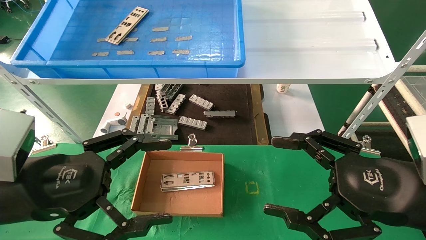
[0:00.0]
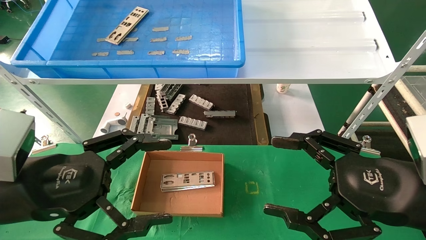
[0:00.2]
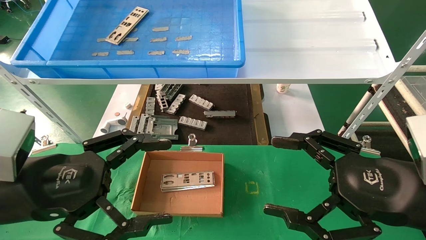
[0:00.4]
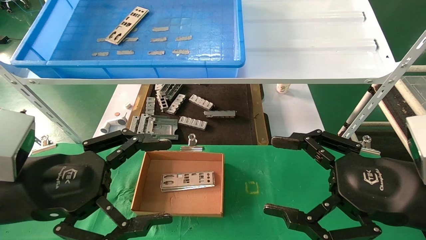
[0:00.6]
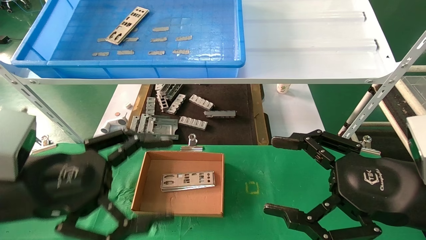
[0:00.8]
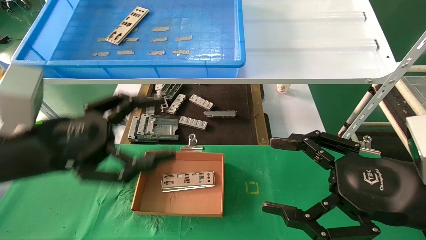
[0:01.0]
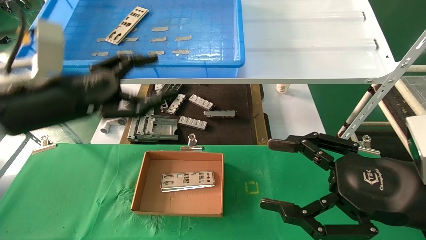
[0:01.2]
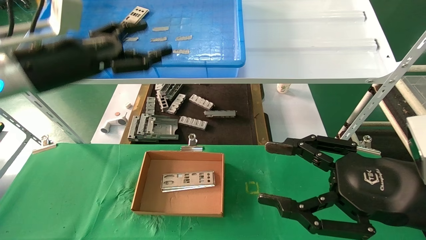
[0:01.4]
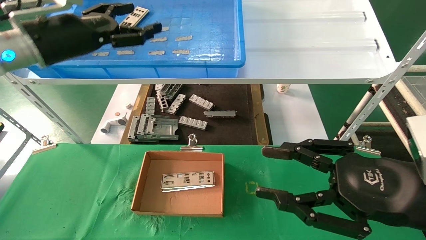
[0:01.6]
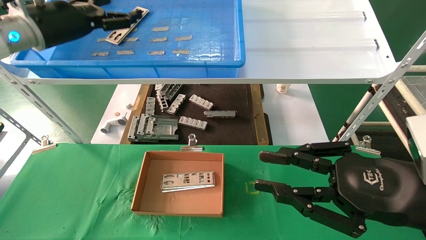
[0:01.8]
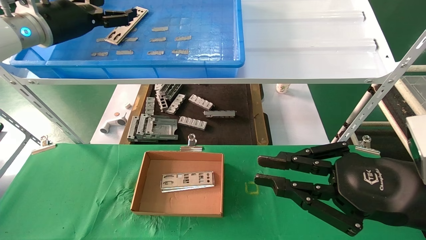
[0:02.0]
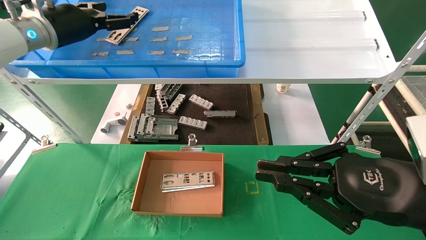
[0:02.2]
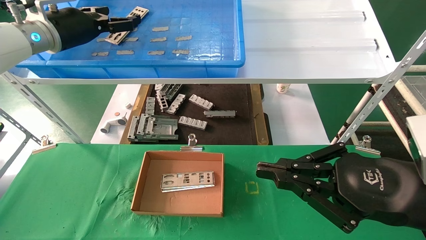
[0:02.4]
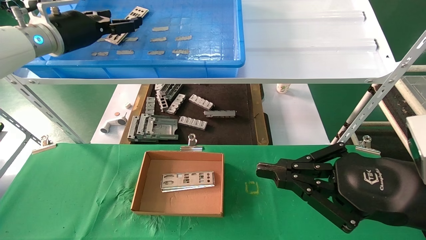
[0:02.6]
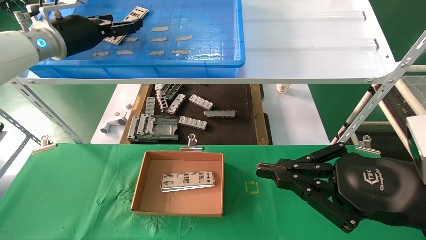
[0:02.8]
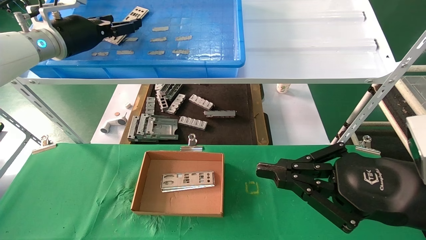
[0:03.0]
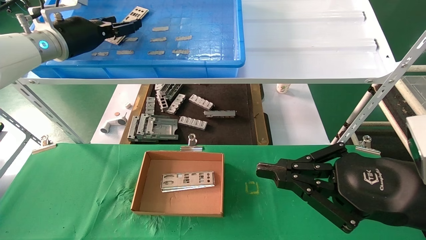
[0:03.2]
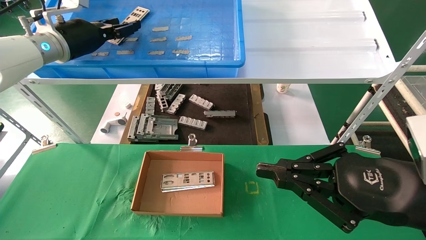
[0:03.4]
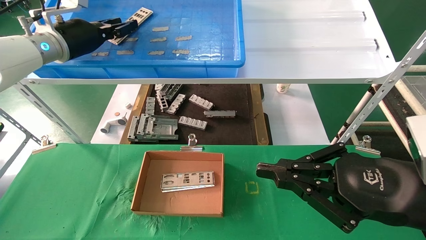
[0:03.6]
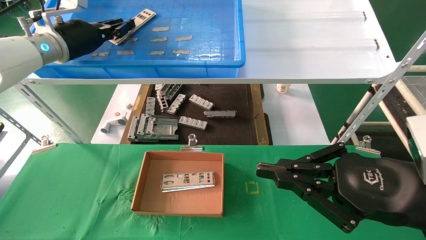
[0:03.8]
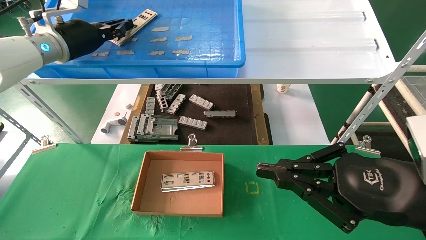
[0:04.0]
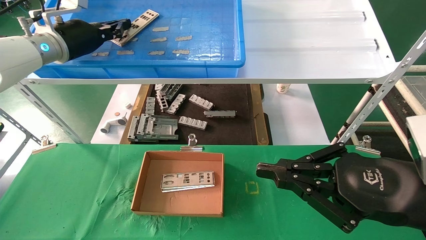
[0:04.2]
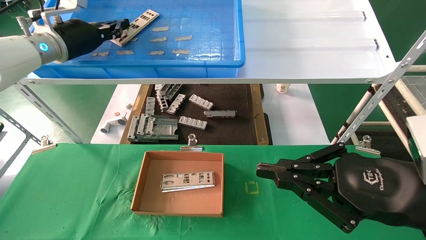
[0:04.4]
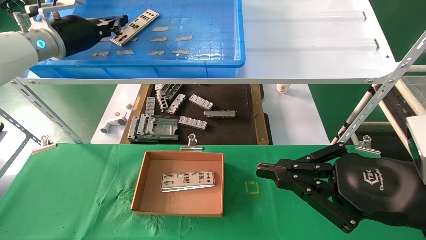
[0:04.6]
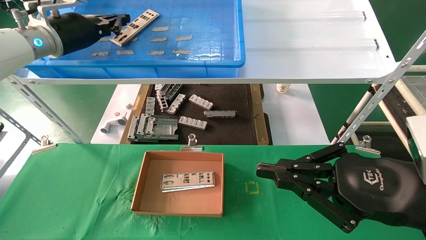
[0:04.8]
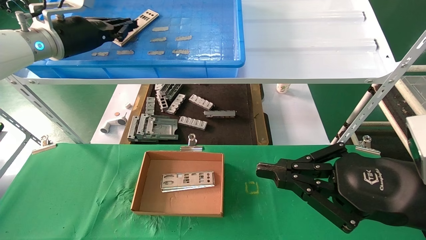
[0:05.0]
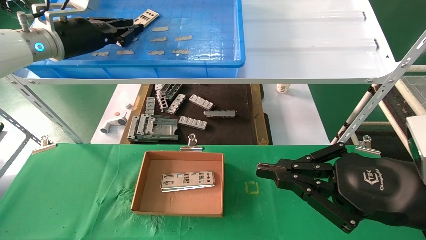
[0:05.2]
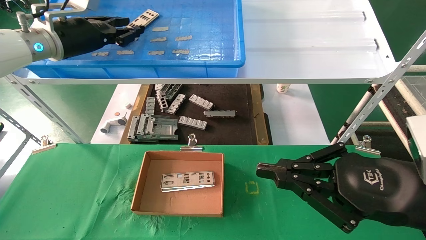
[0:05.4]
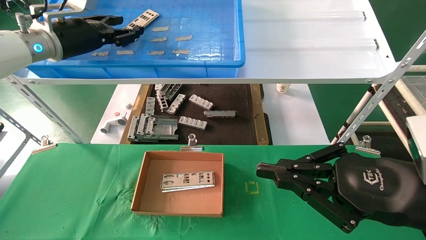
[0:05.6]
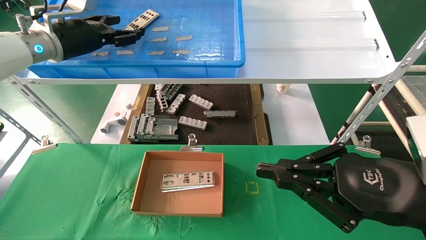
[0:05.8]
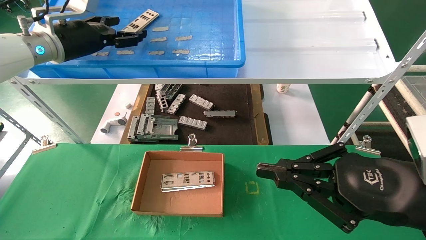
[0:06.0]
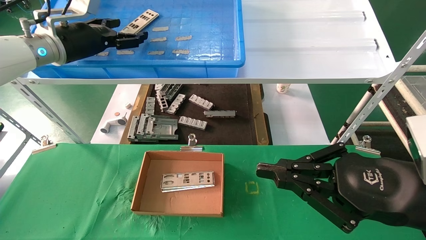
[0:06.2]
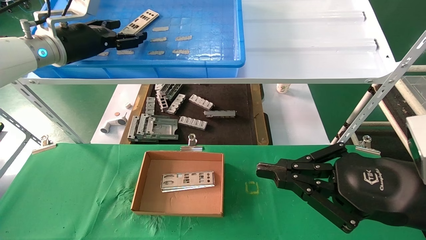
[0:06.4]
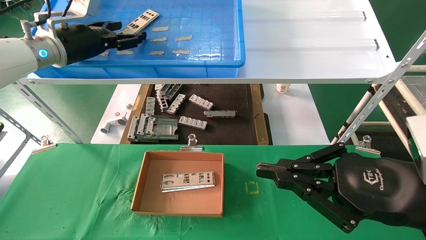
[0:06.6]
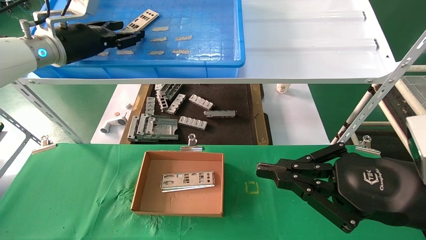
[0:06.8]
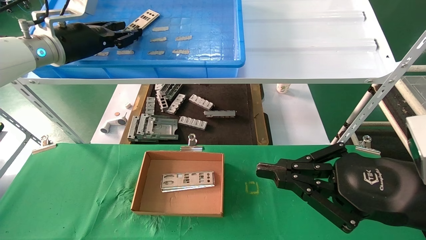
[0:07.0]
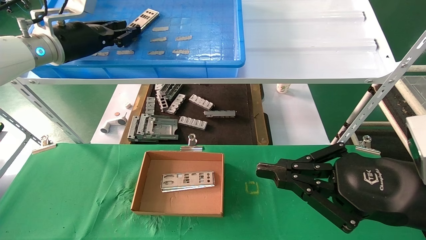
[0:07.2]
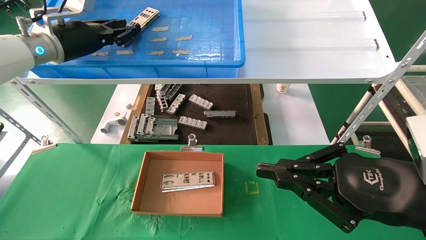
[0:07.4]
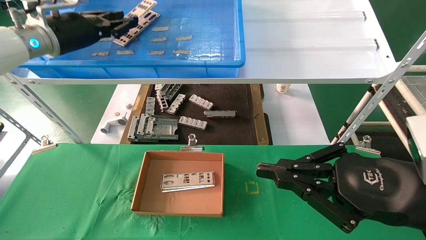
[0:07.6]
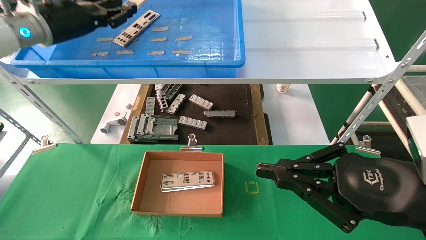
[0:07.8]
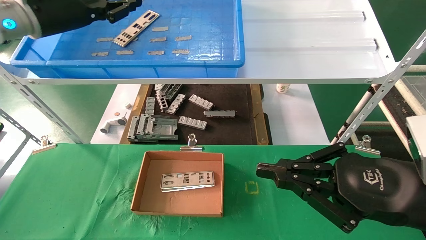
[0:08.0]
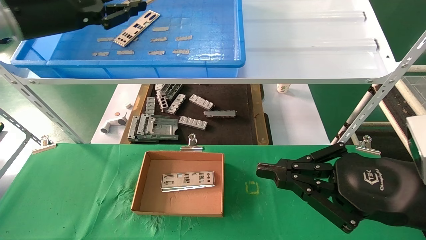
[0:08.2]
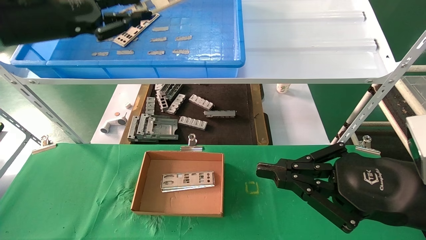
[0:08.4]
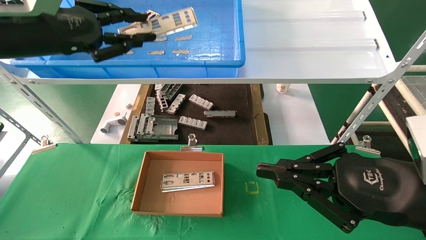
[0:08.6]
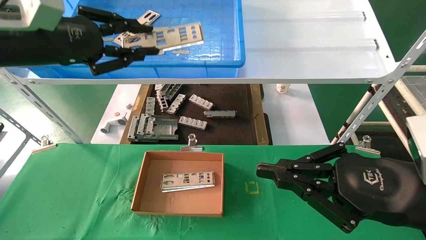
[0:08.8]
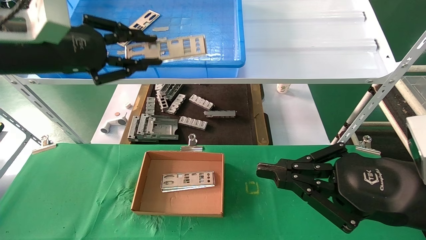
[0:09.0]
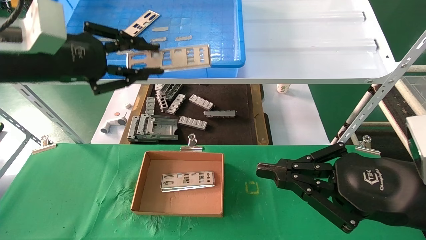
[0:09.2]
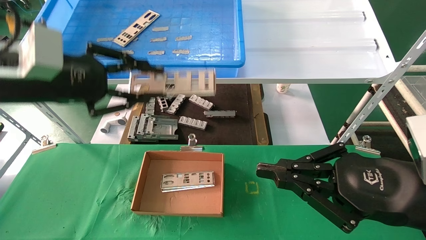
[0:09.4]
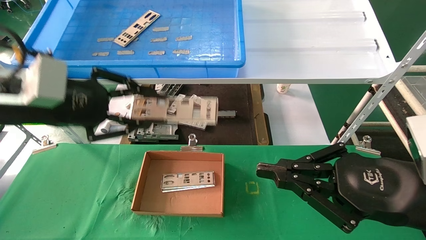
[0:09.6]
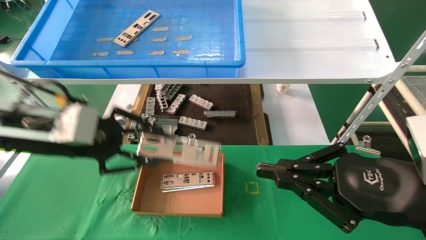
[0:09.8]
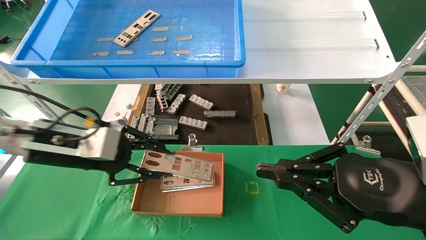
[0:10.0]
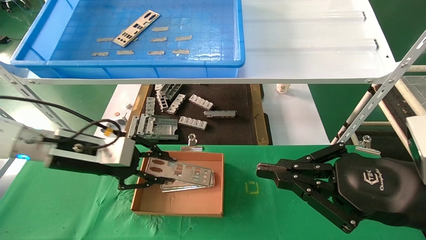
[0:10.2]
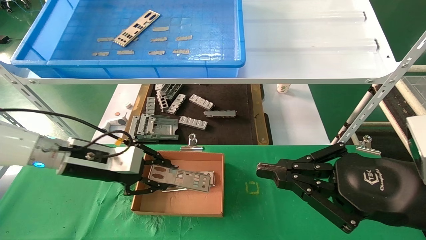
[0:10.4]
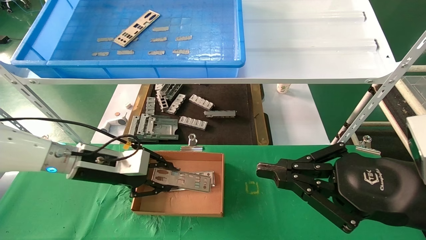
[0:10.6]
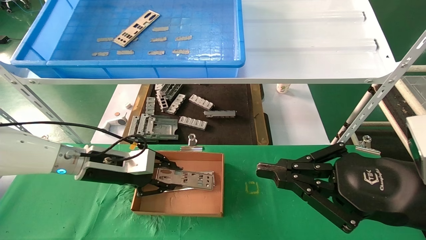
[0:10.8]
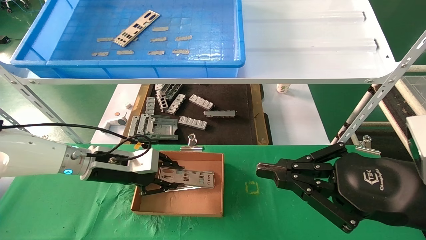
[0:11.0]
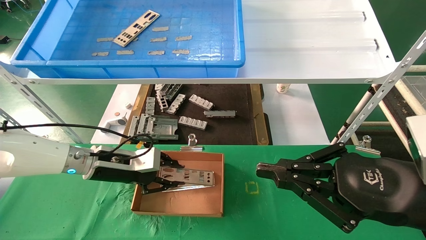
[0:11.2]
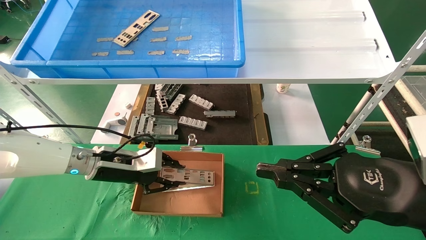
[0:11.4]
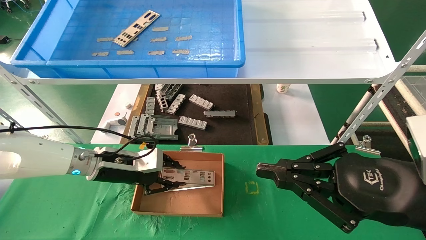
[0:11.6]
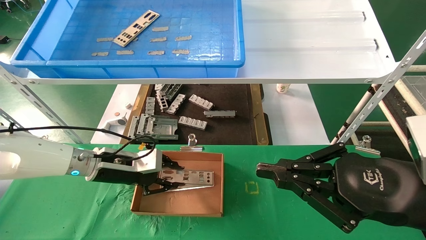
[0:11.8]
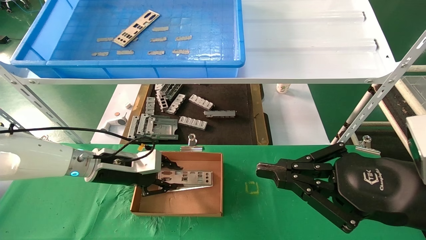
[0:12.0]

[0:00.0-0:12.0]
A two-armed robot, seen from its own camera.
Task of the whole recording: pick up the parts on the tray and put them in the cardboard box.
Step, 0:01.0 to 0:07.6: Pick up the IO bracket from the container box.
0:00.0 to 0:01.6: The right gripper closes its fingers; the left gripper travels forward and upward by roughly 25 cm.
0:01.6 to 0:03.0: The right gripper closes its fingers; the left gripper heads forward, covering some 5 cm.
0:03.0 to 0:04.4: The left gripper closes its fingers.
0:04.4 to 0:06.0: The left gripper opens its fingers.
0:06.0 to 0:07.6: The left gripper closes its fingers.
0:07.6 to 0:09.0: The left gripper travels backward by about 15 cm.
0:09.0 to 0:10.4: The left gripper travels downward by approximately 20 cm.
0:10.4 to 0:12.0: The left gripper shifts some 5 cm downward.

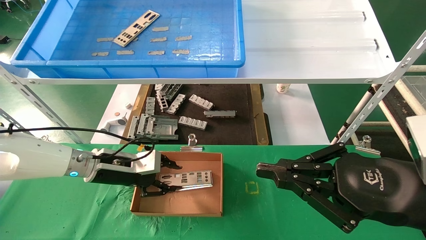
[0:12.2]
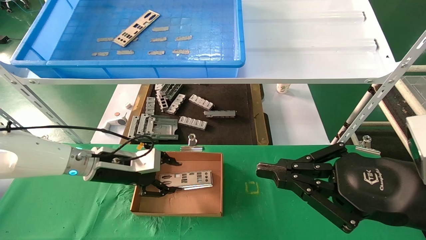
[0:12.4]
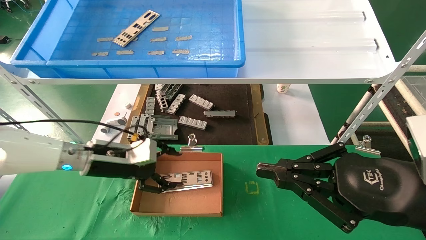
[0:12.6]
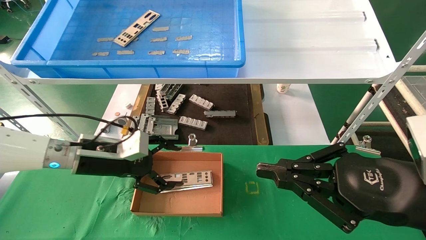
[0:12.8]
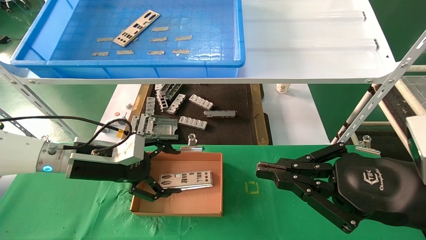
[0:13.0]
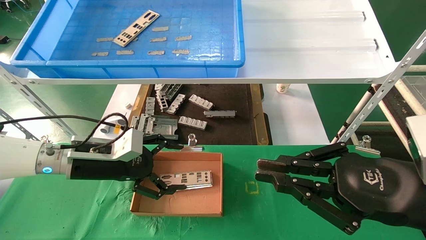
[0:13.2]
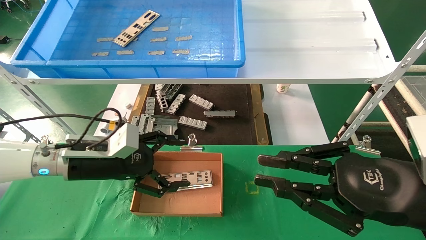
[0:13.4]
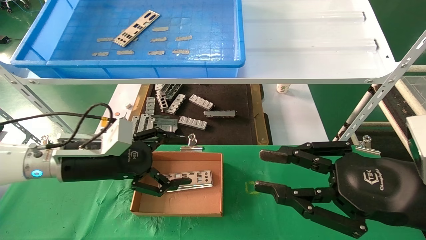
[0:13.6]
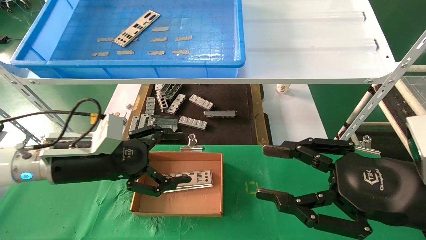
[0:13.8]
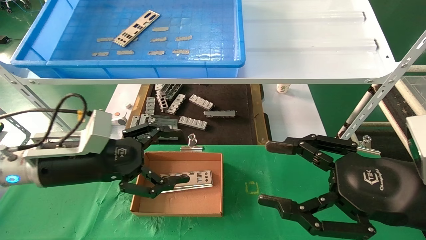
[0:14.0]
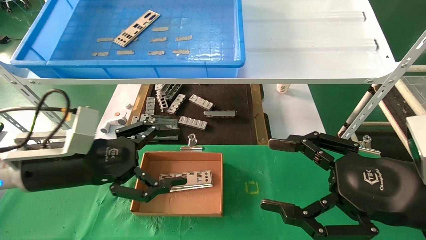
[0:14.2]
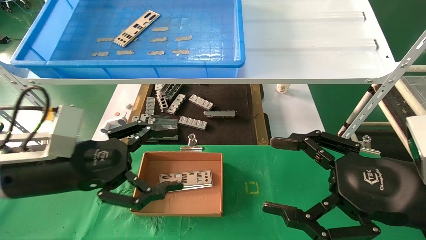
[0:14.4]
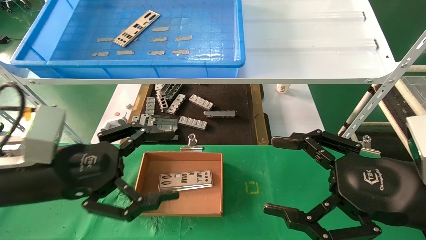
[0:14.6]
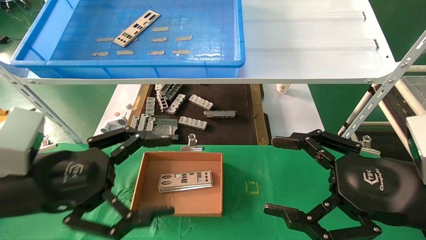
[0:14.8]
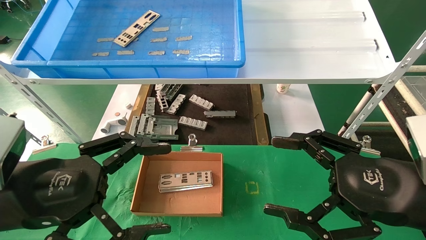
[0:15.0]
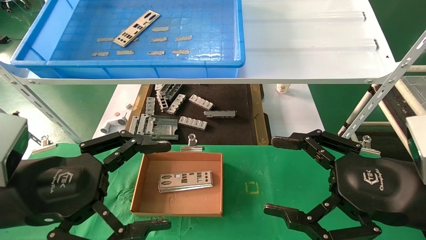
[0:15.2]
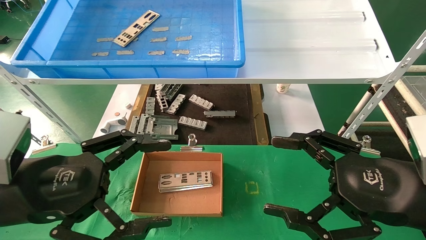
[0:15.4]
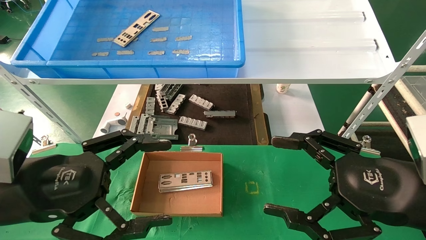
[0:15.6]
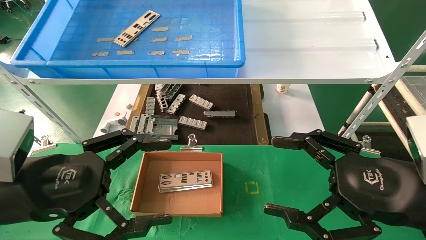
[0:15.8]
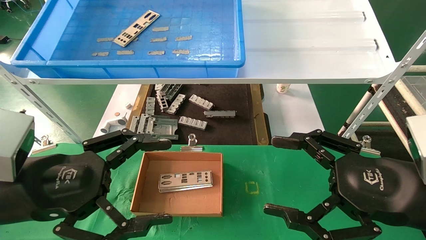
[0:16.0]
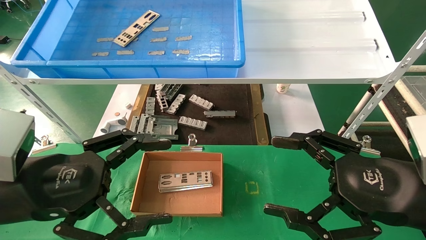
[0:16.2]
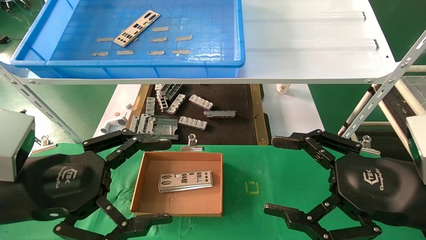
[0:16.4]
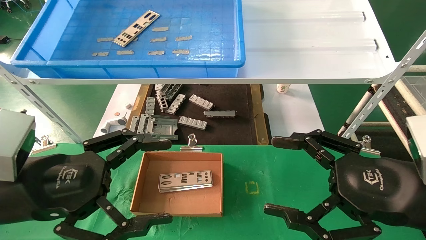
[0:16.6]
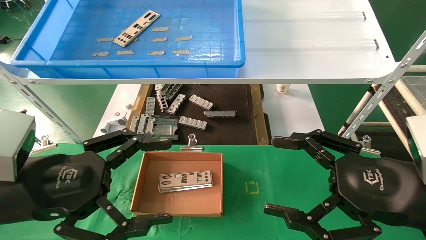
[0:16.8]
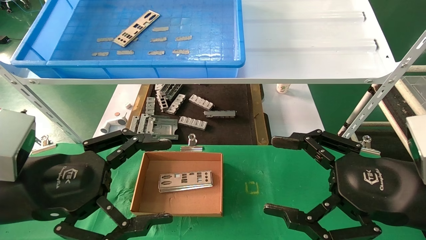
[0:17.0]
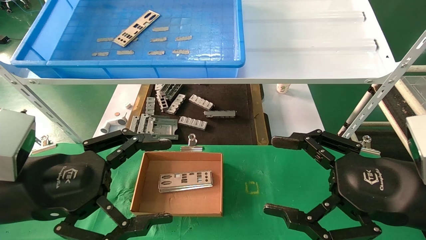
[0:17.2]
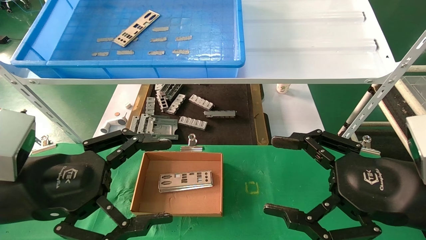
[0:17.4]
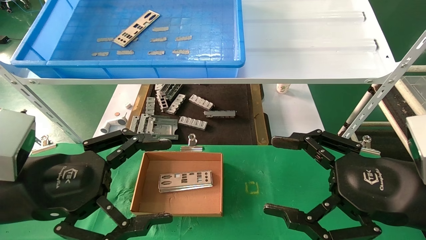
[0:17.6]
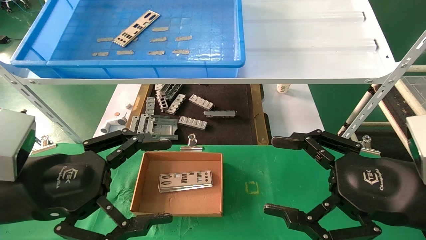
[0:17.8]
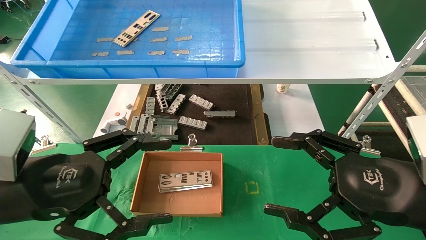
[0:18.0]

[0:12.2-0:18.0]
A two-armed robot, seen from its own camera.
Task of the whole recording: pick up the parts on the tray and put them in the cardboard box.
0:12.2 to 0:13.6: The left gripper shifts roughly 5 cm backward, and opens.
0:13.6 to 0:15.0: The right gripper opens up. Meanwhile the left gripper moves backward, roughly 15 cm.
0:15.0 to 0:18.0: Both grippers stay put.
